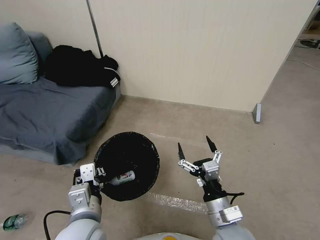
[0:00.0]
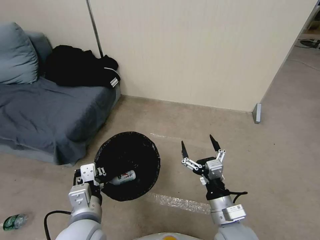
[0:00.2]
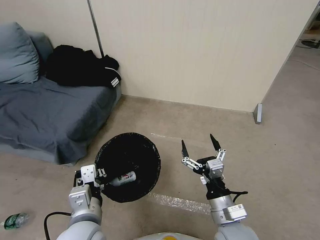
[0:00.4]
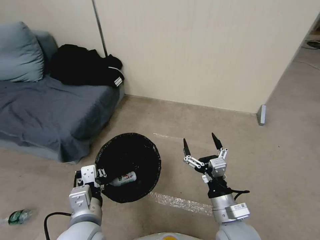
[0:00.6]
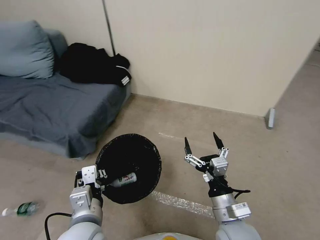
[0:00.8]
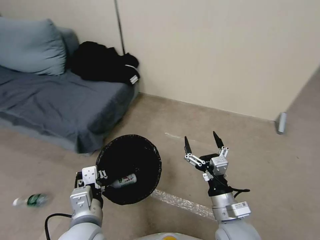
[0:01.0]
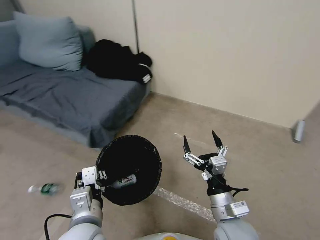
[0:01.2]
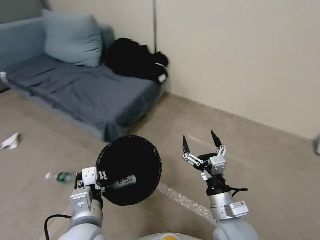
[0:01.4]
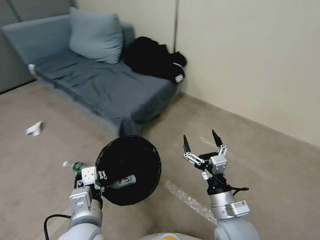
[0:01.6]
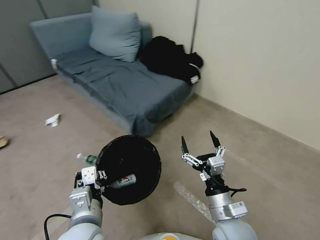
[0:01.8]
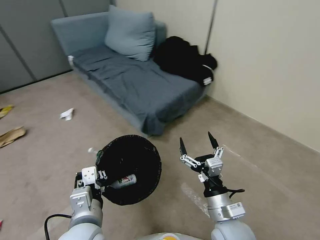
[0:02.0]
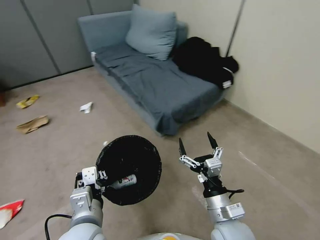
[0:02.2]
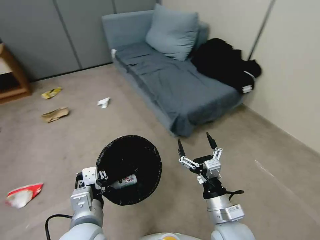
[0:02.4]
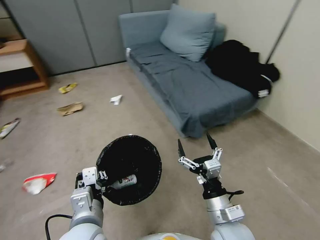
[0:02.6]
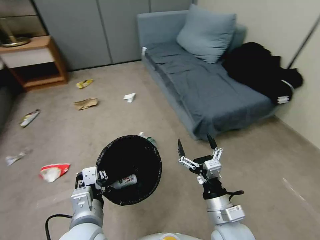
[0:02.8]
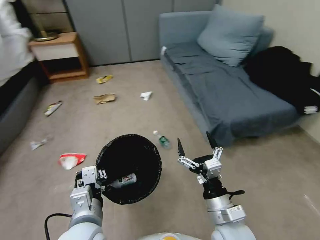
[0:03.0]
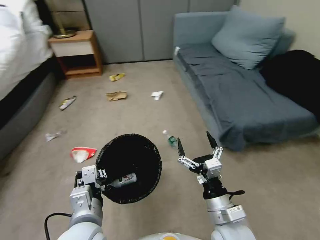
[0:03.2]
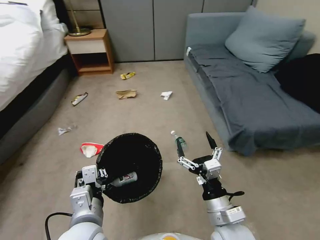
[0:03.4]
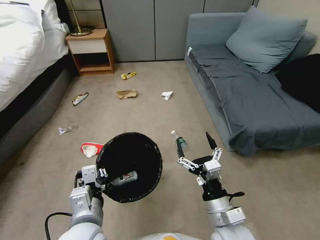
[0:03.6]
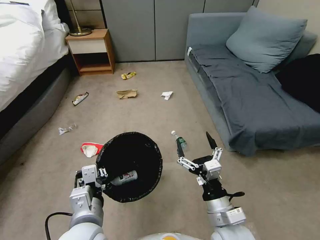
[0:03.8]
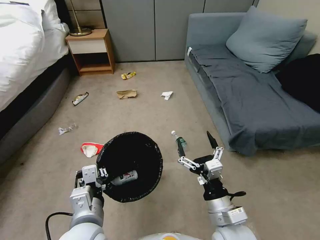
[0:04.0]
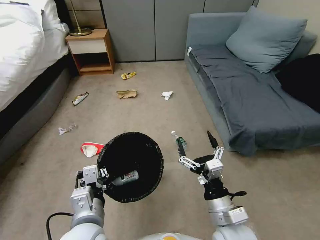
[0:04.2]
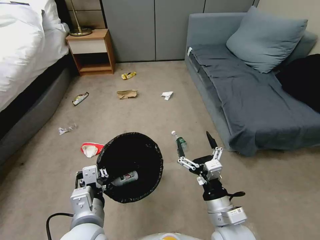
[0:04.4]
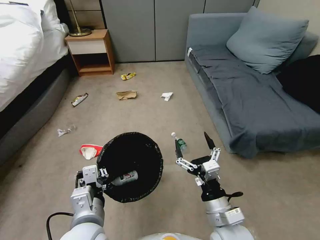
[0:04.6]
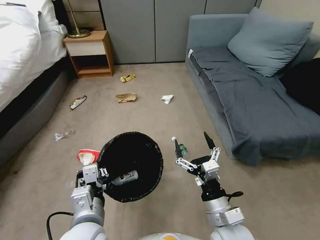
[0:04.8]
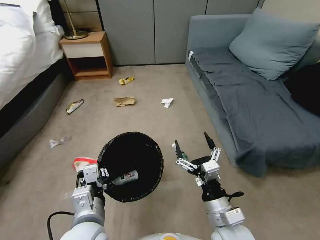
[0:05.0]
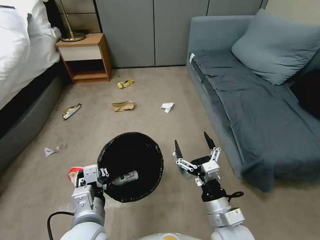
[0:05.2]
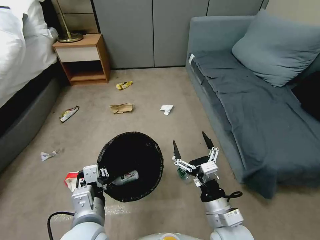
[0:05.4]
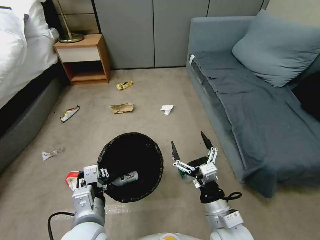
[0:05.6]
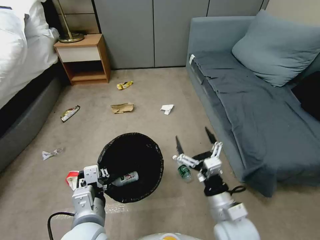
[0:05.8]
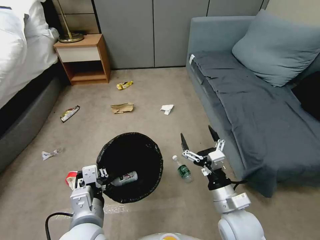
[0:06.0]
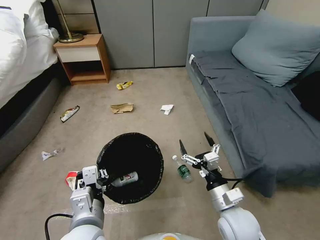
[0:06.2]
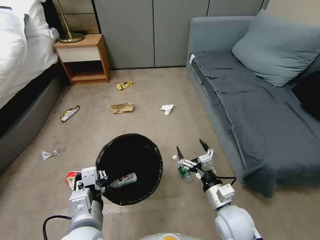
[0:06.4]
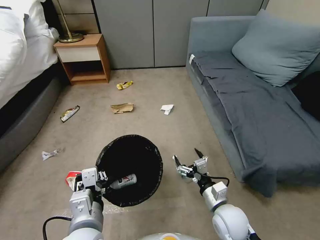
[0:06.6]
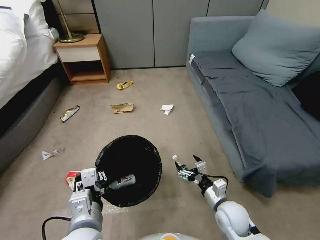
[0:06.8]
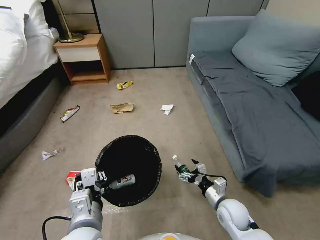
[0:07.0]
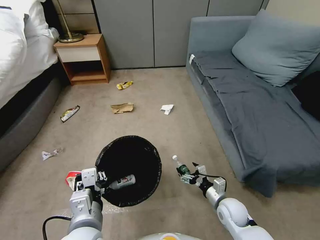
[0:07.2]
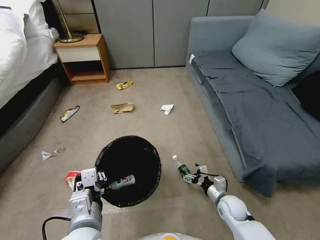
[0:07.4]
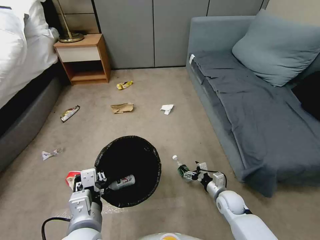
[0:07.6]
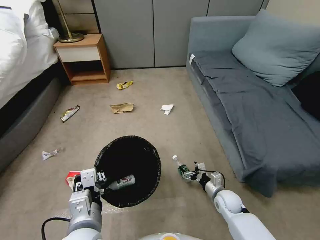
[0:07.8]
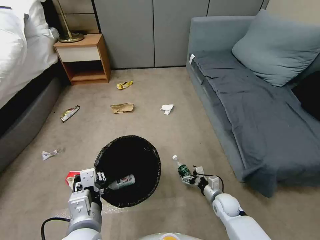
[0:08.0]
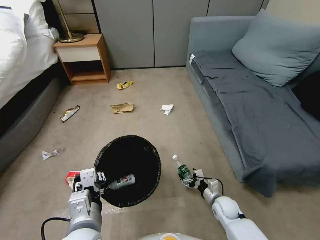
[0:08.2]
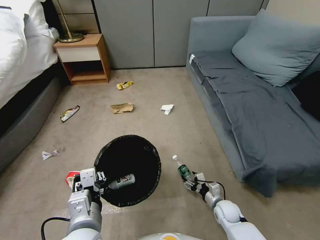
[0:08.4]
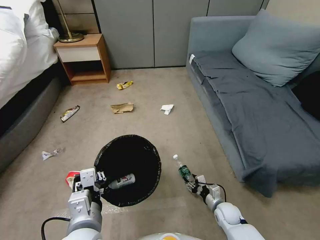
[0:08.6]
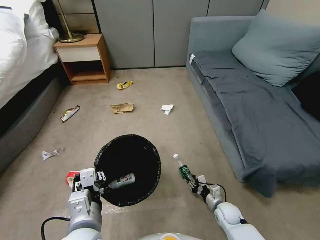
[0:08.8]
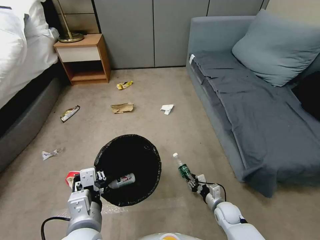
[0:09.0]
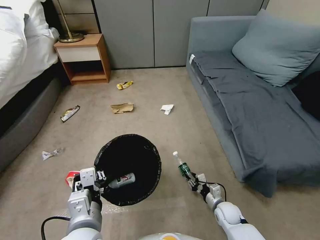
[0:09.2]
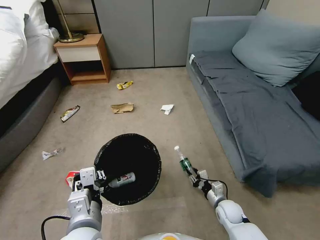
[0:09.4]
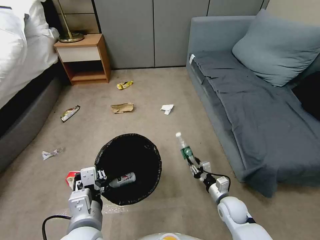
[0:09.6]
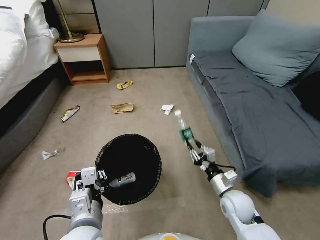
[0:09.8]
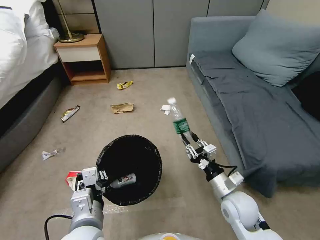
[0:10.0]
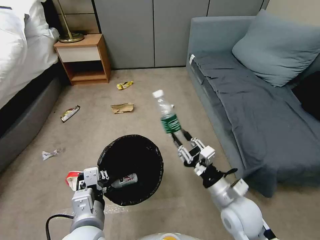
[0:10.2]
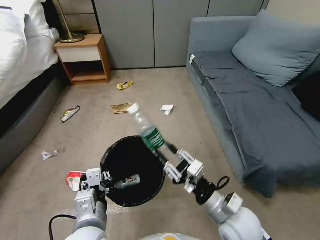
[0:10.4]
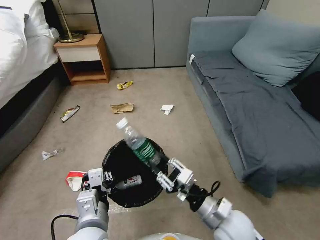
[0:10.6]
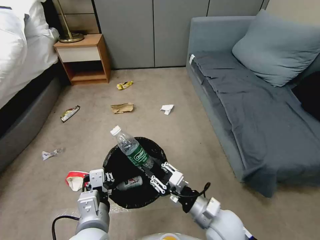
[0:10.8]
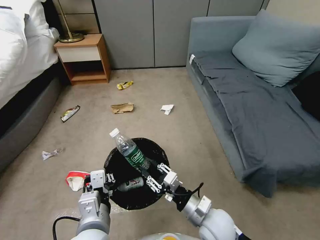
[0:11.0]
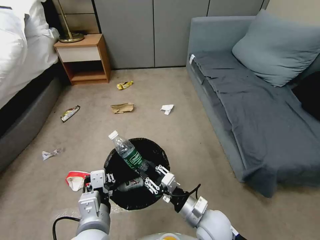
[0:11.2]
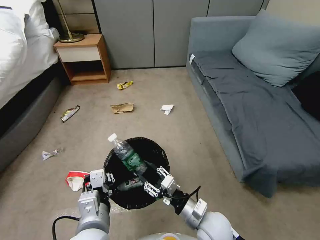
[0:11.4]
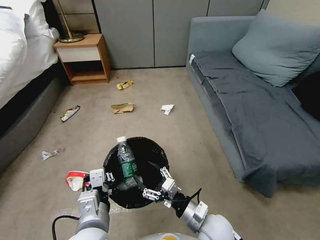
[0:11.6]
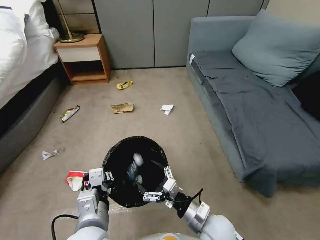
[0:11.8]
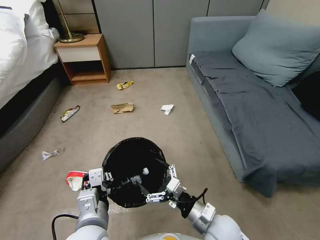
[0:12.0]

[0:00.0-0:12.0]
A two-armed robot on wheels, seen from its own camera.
Task of the whole recording: Pick up the trash bin, then pick up the garbage from the floor and place it into the trash bin.
0:06.0 to 0:07.6: The right gripper travels downward and forward by some 20 cm.
0:07.6 to 0:09.0: The right gripper is displaced downward by about 5 cm, and closes.
0:09.0 to 0:10.4: The right gripper goes some 25 cm upward.
0:10.4 to 0:12.0: The right gripper moves downward, roughly 5 cm, and opens its fingers.

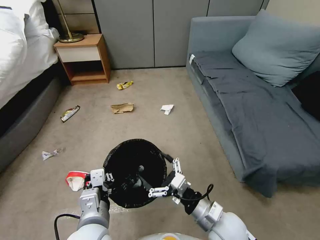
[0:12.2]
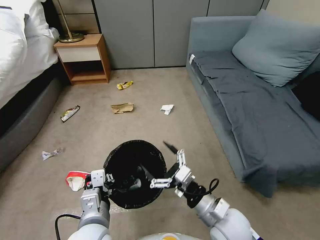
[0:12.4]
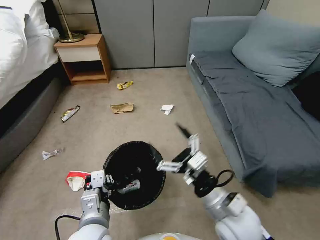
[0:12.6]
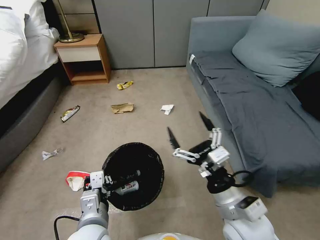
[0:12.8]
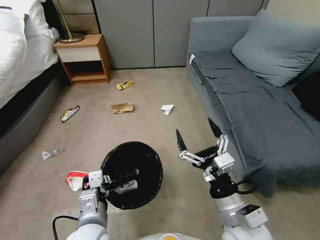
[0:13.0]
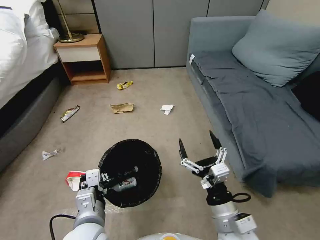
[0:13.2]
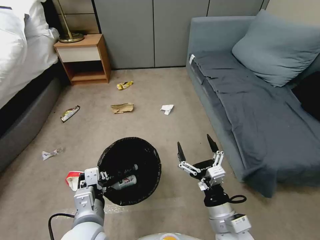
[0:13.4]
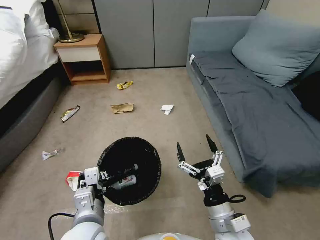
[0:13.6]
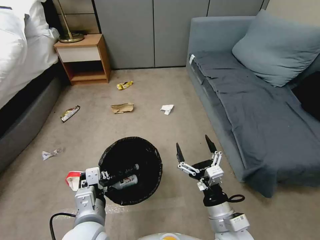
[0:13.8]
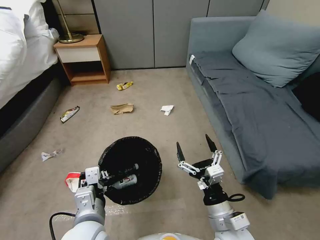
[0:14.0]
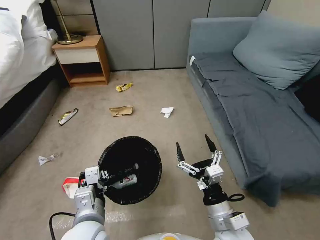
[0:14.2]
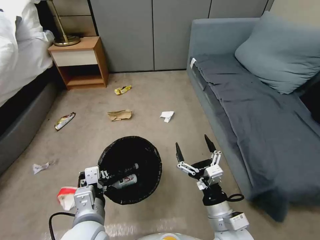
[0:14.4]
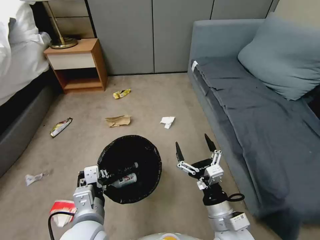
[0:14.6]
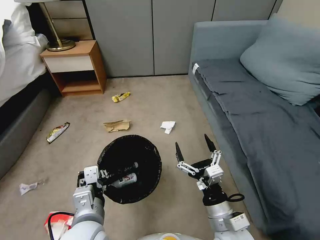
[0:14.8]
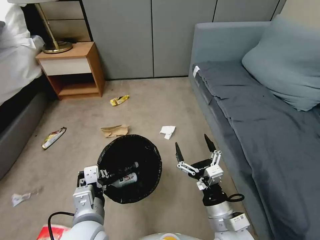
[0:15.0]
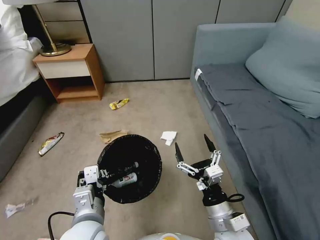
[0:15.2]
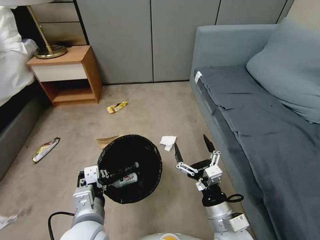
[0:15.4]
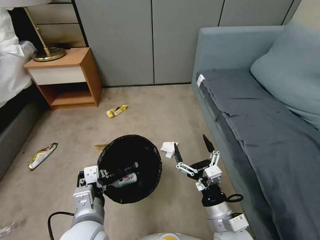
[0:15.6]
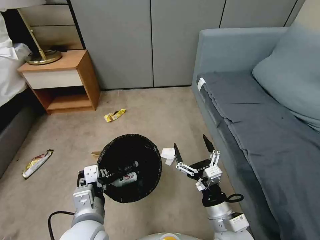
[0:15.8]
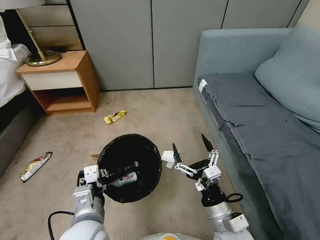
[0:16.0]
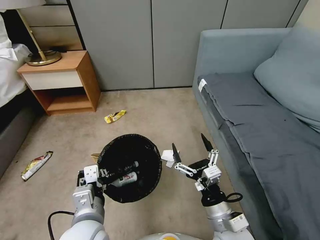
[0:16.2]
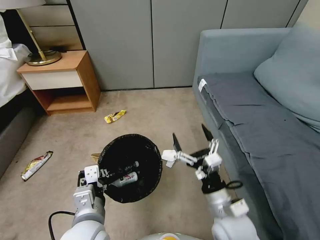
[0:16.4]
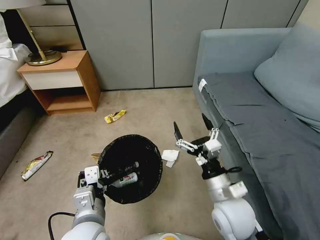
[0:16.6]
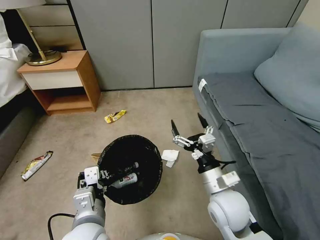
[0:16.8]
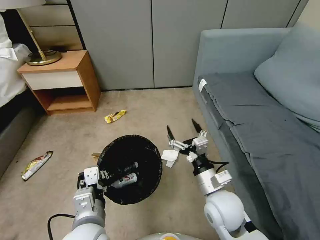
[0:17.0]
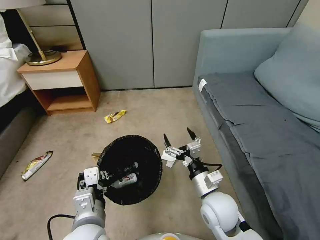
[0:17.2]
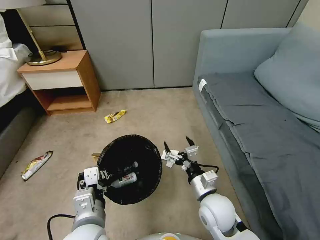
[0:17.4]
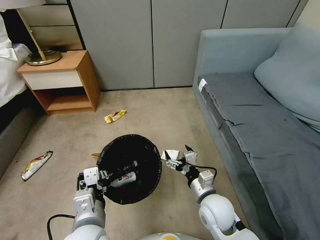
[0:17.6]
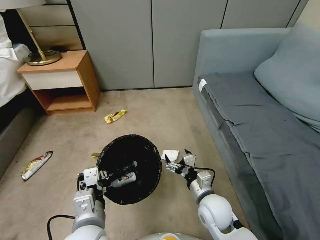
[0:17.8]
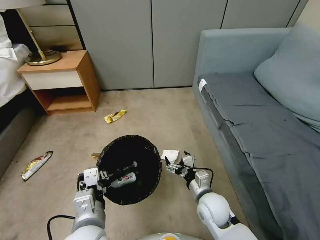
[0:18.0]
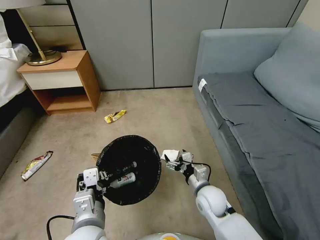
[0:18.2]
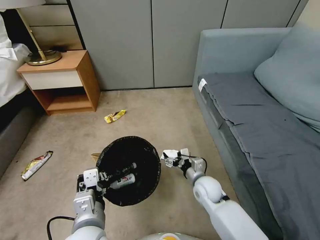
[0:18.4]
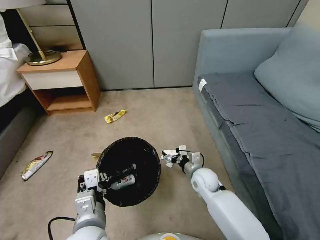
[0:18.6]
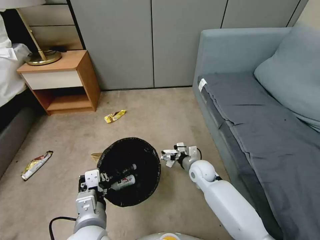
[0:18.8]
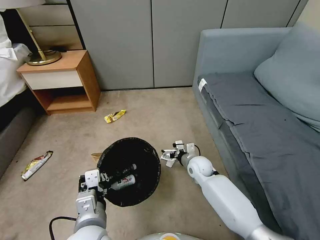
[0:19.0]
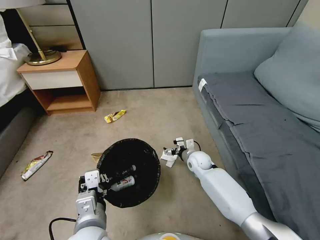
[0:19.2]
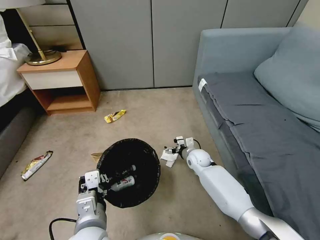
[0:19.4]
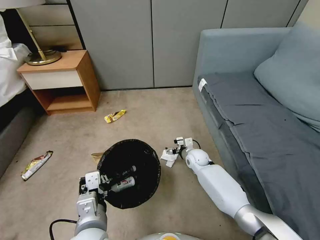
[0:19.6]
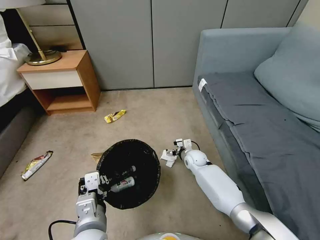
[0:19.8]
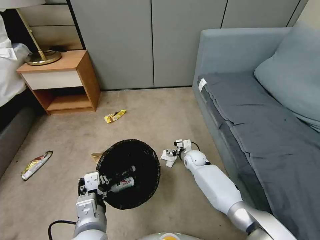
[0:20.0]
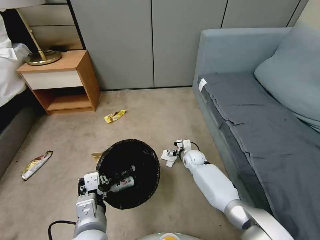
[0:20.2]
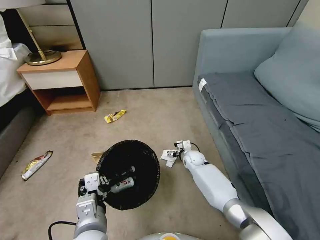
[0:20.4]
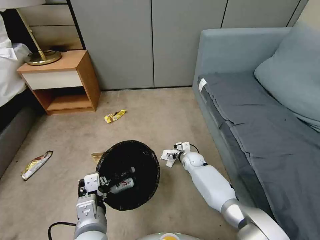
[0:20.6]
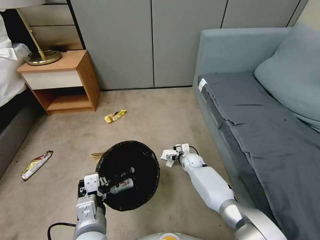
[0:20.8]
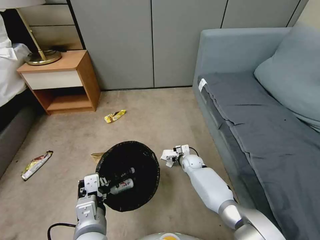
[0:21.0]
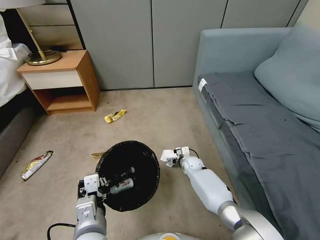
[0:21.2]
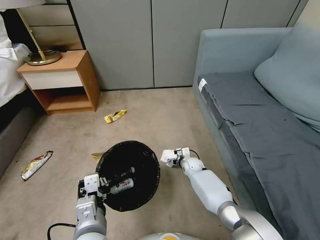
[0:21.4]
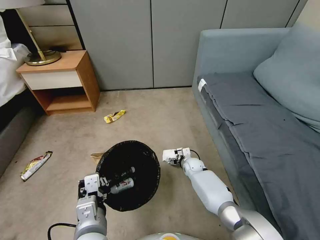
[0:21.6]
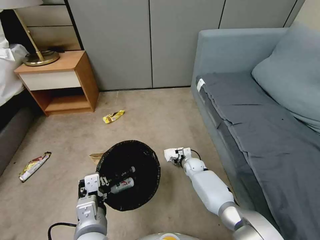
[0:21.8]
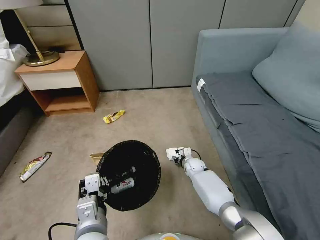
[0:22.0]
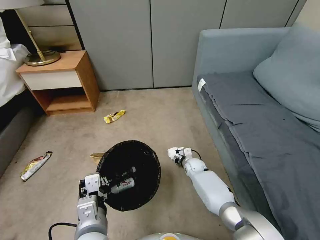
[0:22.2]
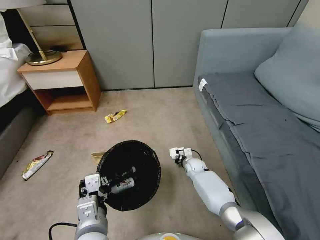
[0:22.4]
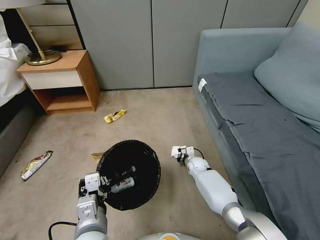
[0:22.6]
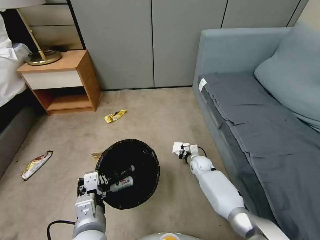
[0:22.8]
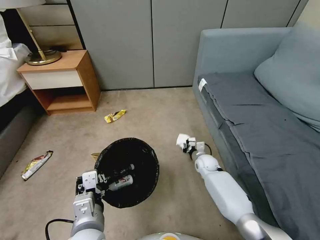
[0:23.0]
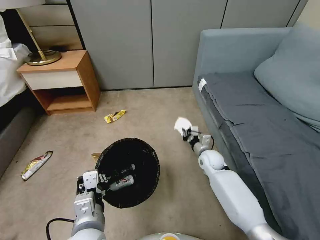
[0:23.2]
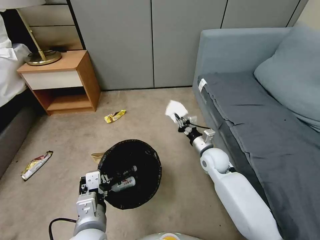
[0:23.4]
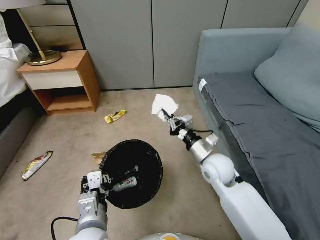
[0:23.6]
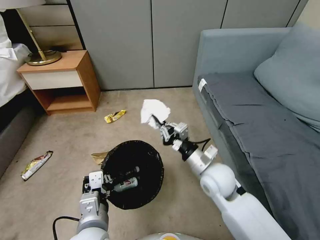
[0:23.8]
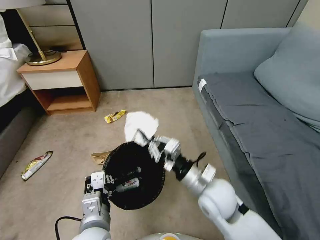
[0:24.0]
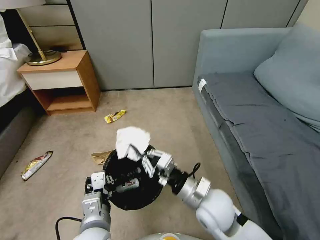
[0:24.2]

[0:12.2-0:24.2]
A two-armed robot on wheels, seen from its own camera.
Task of the whole recording: Pick up the trash bin, then pick up the garbage from the floor and place it into the trash bin.
0:12.2 to 0:13.8: The right gripper reaches approximately 10 cm upward, then returns.
0:15.2 to 0:16.6: The right gripper travels forward by some 5 cm.
0:16.6 to 0:18.2: The right gripper goes roughly 15 cm downward and forward.
0:18.2 to 0:19.8: The right gripper goes roughly 20 cm forward.
0:19.8 to 0:21.2: The right gripper moves downward, some 5 cm.
0:21.2 to 0:22.6: The right gripper closes its fingers.
0:22.6 to 0:24.2: The right gripper is displaced upward and backward by roughly 35 cm.
